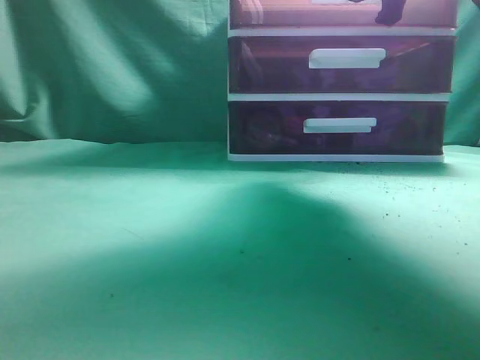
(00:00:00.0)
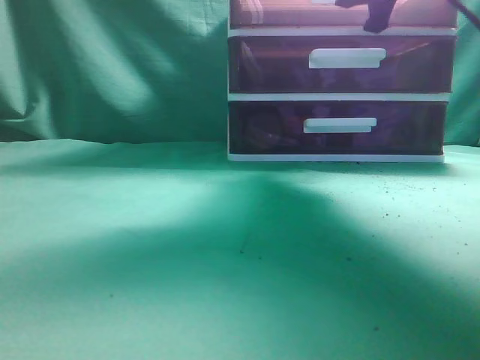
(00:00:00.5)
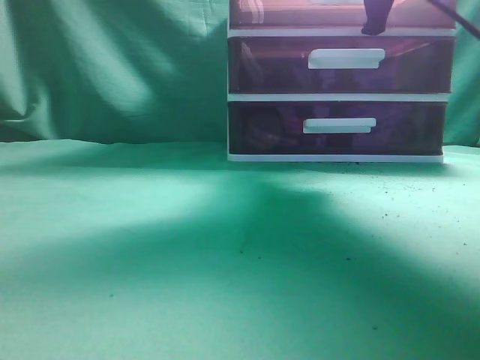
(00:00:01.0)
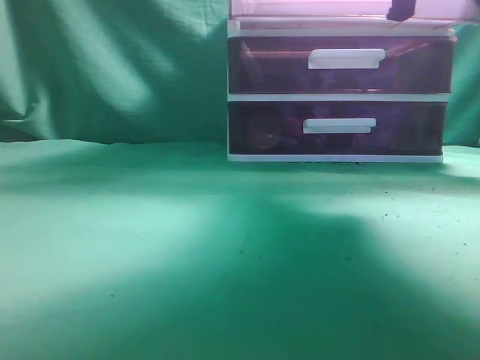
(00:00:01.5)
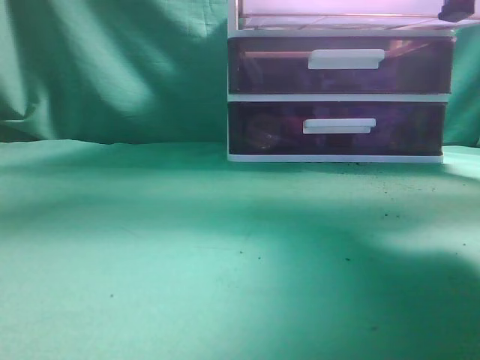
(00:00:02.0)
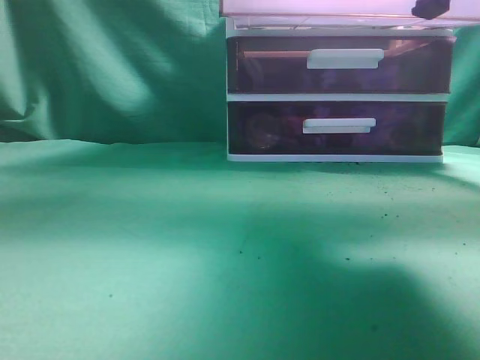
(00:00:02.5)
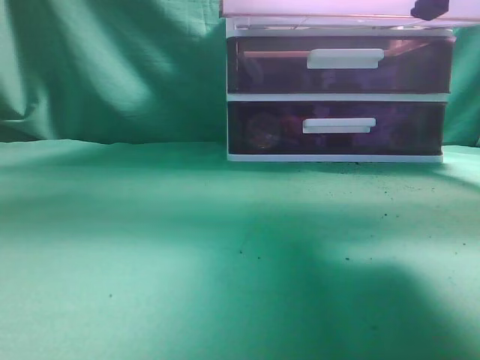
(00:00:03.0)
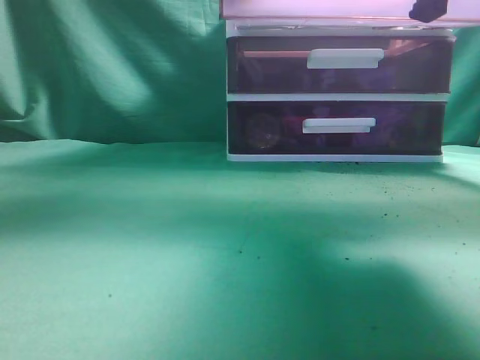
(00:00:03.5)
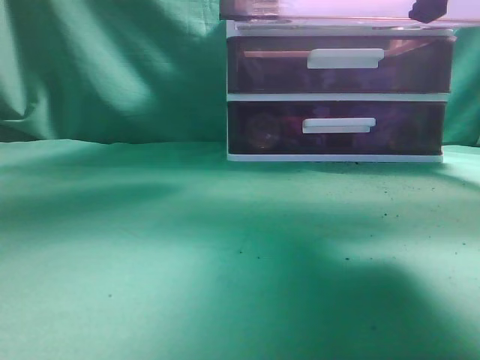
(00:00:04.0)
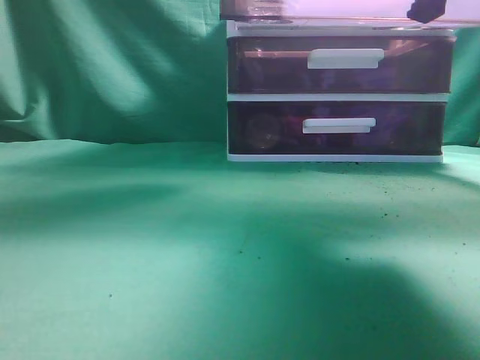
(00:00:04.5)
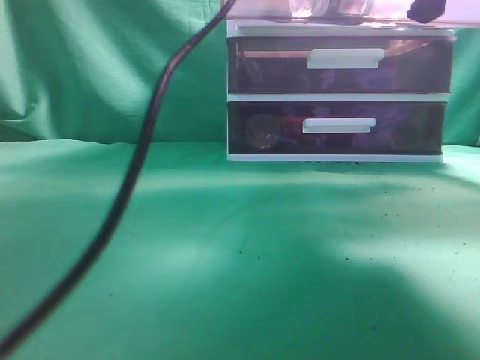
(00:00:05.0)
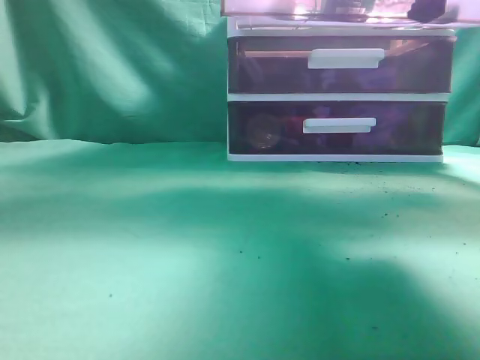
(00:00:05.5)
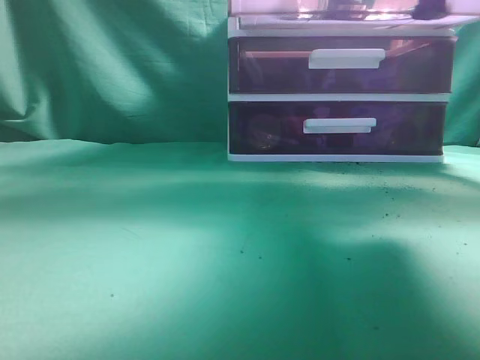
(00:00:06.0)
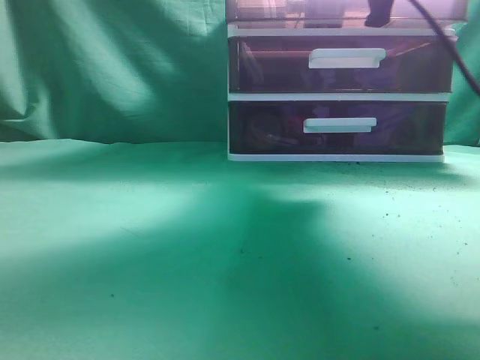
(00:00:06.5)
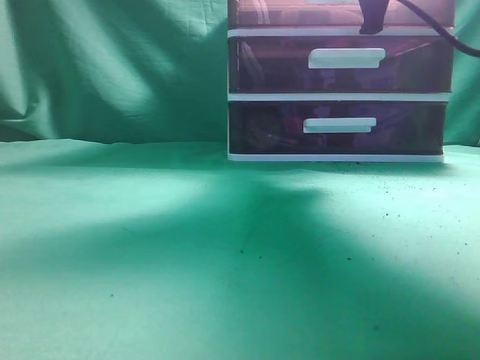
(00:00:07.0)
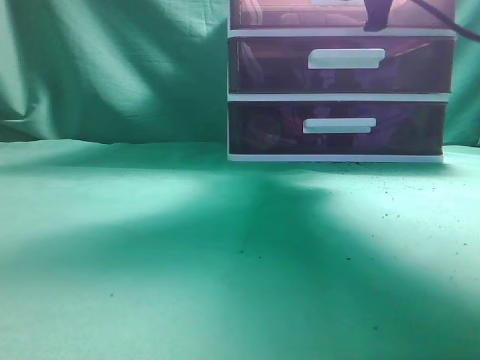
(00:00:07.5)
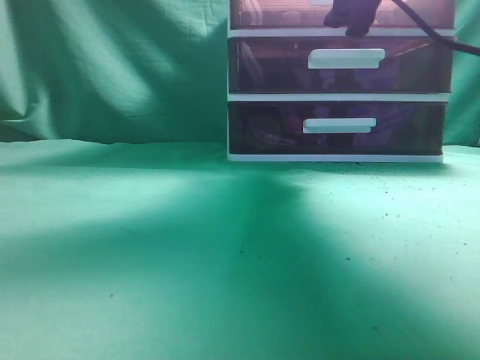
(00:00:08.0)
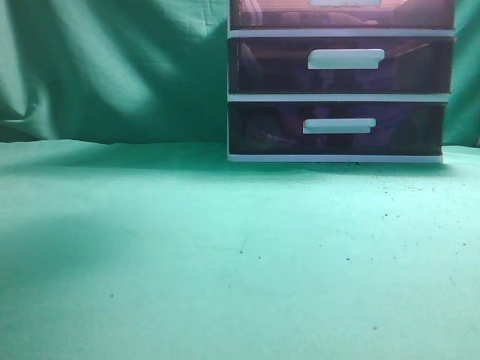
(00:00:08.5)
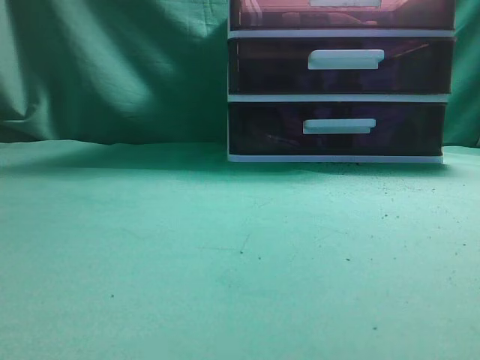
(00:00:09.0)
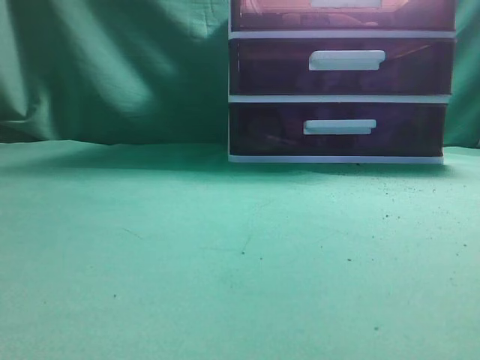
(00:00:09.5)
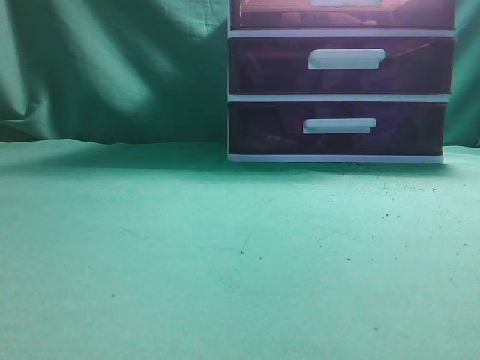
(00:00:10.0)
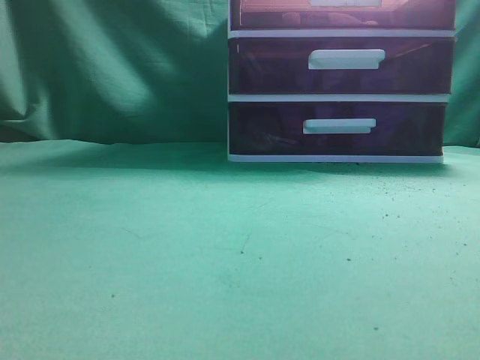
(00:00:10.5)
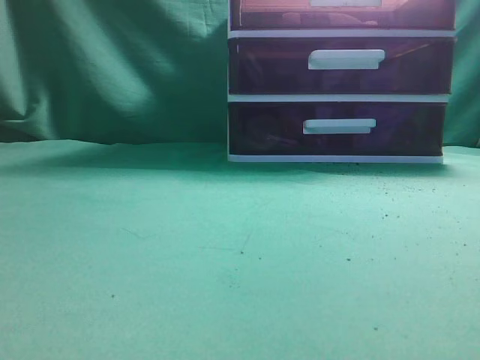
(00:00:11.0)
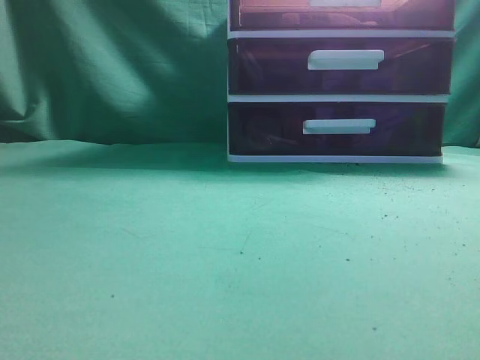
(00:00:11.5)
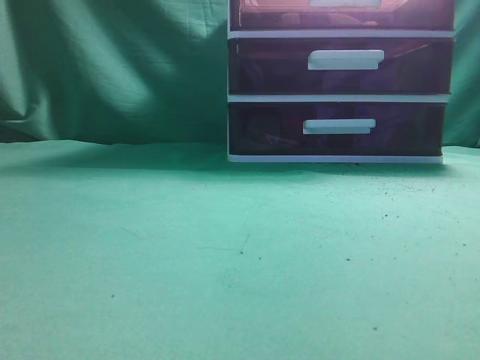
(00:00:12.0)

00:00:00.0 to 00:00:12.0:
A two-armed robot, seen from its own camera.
Task of the whole recording: place the water bottle into the drawer.
Step, 00:00:00.0 to 00:00:02.0: Open the drawer.
Step, 00:00:02.5 to 00:00:05.0: Place the water bottle inside the drawer.
Step, 00:00:05.5 to 00:00:08.0: Close the drawer.
00:00:00.0 to 00:00:02.0: The right gripper travels backward by some 10 cm.
00:00:02.0 to 00:00:04.0: The left gripper is displaced forward and to the right by approximately 25 cm, and opens up.
00:00:04.0 to 00:00:06.0: The left gripper shifts roughly 20 cm upward, backward and to the left, and closes.
00:00:06.0 to 00:00:08.0: The right gripper is displaced forward by approximately 10 cm, and opens its fingers; the left gripper goes roughly 15 cm backward and to the left.
00:00:08.0 to 00:00:10.0: The left gripper goes about 25 cm downward, backward and to the left. The right gripper heads backward and upward, covering some 30 cm, and closes its fingers.
